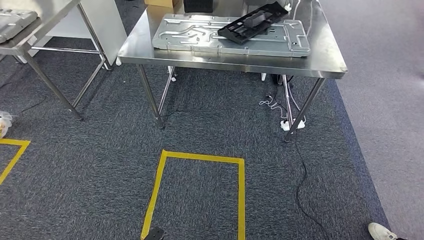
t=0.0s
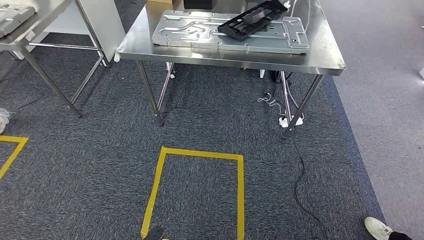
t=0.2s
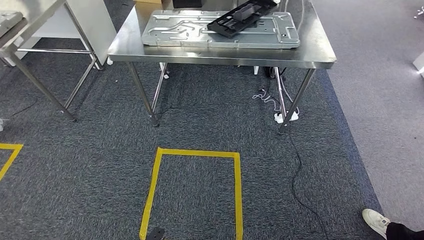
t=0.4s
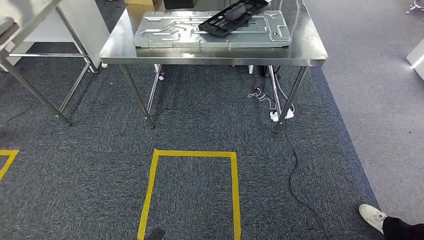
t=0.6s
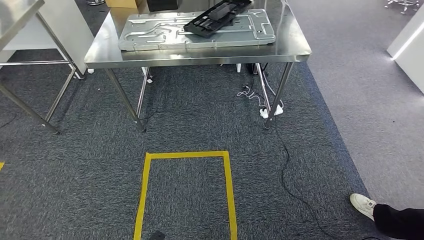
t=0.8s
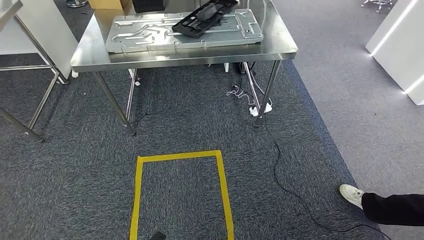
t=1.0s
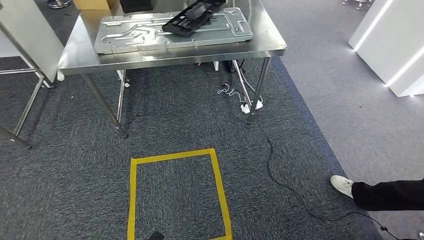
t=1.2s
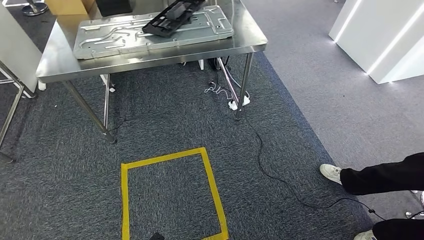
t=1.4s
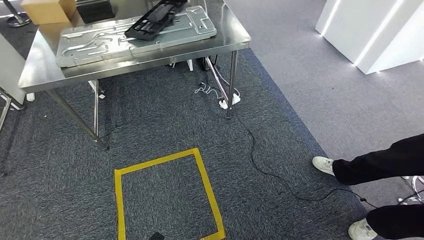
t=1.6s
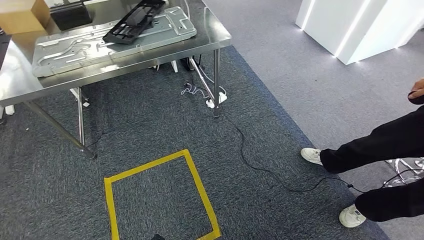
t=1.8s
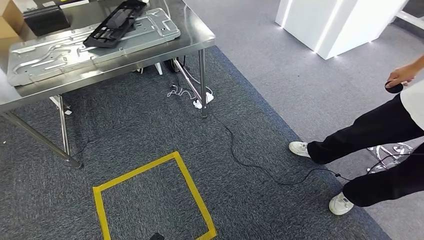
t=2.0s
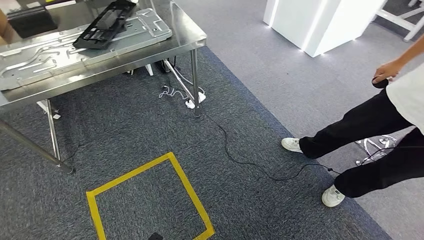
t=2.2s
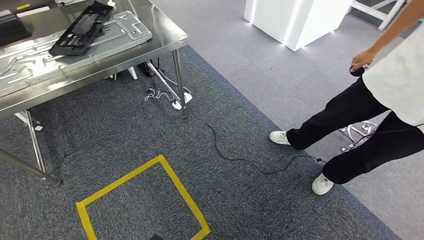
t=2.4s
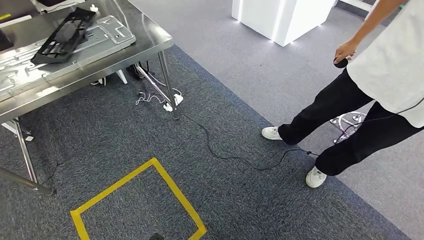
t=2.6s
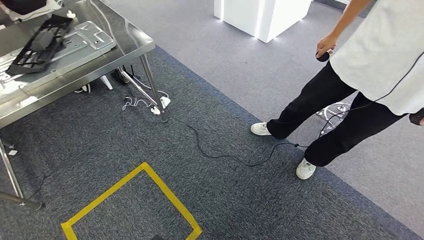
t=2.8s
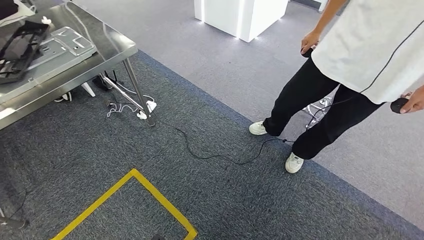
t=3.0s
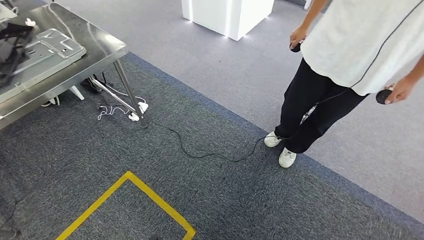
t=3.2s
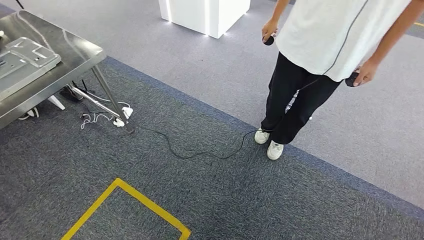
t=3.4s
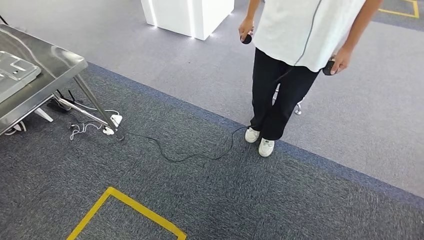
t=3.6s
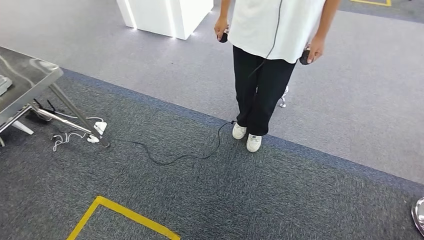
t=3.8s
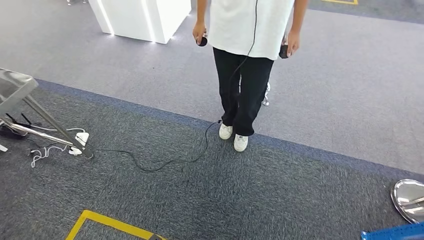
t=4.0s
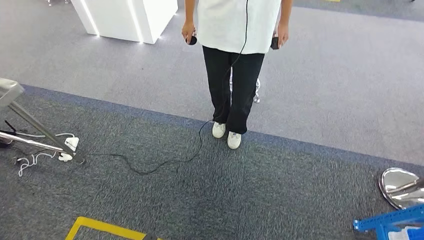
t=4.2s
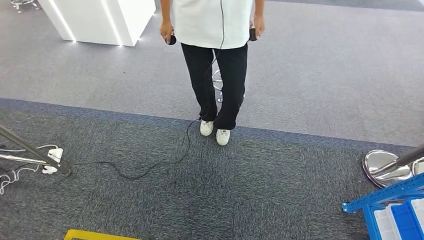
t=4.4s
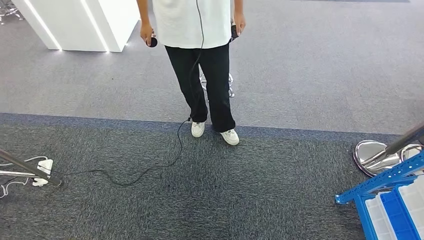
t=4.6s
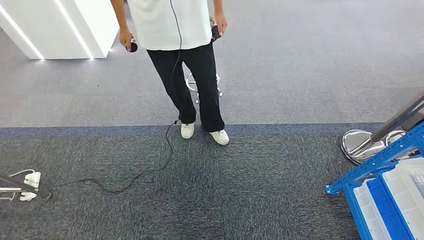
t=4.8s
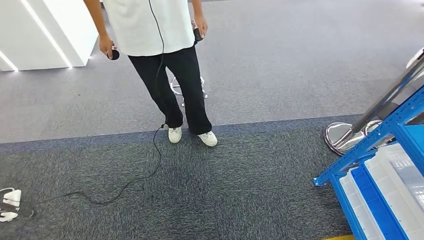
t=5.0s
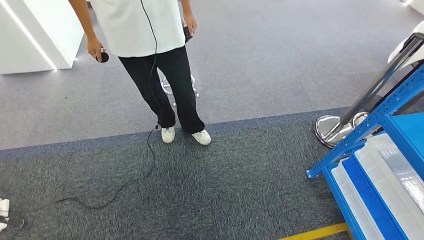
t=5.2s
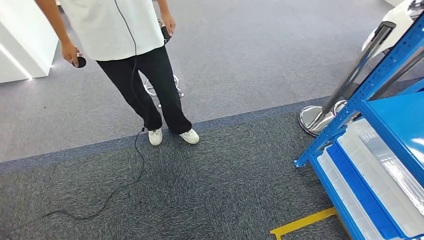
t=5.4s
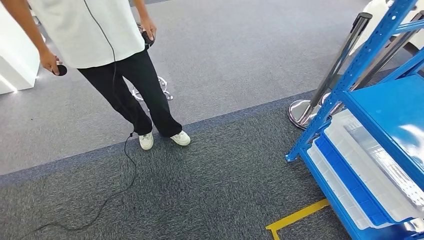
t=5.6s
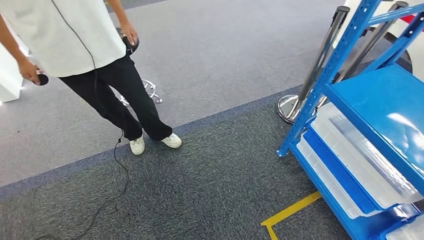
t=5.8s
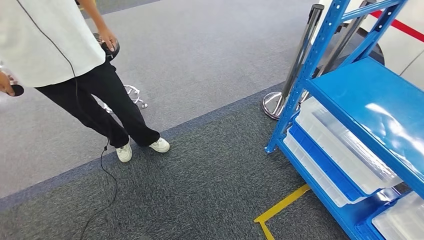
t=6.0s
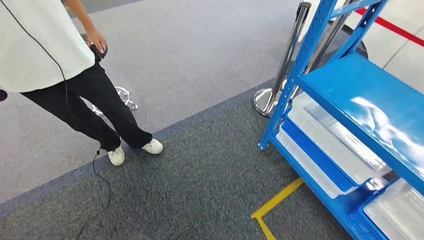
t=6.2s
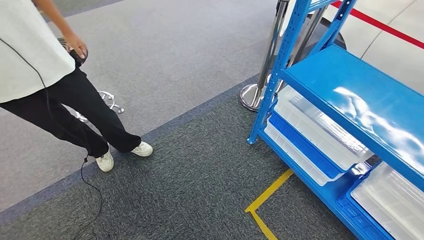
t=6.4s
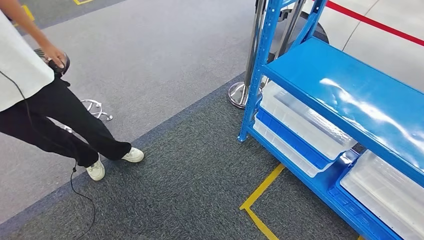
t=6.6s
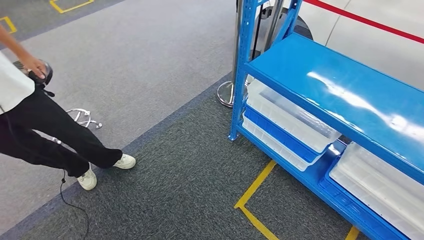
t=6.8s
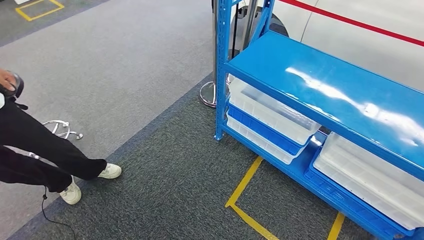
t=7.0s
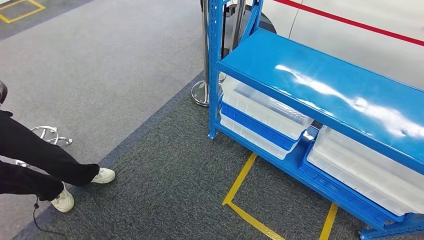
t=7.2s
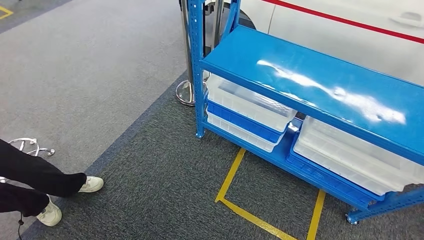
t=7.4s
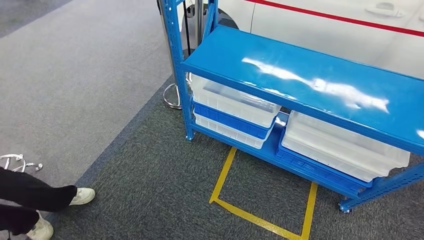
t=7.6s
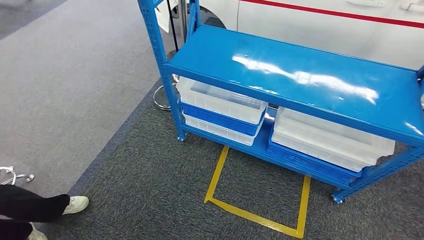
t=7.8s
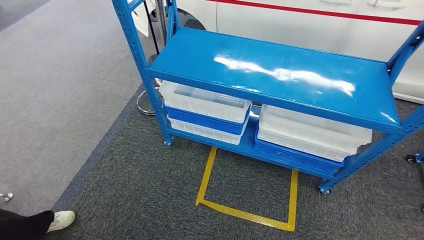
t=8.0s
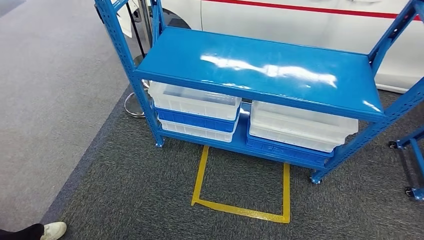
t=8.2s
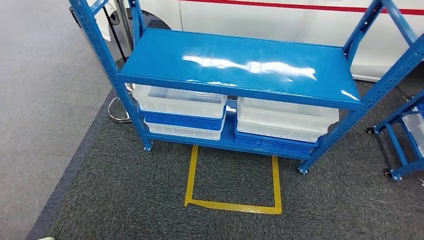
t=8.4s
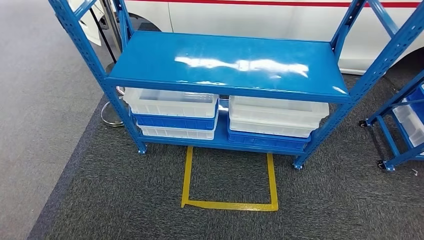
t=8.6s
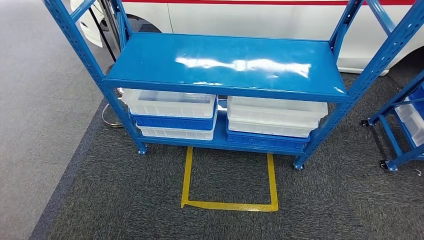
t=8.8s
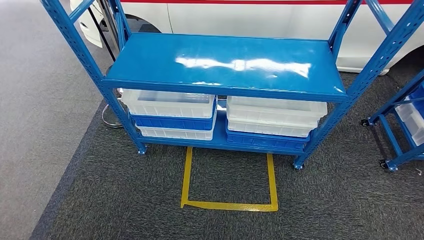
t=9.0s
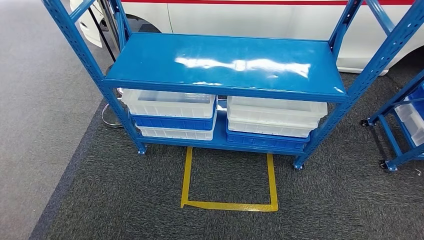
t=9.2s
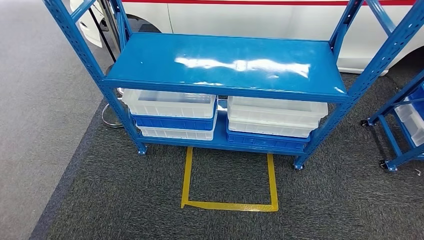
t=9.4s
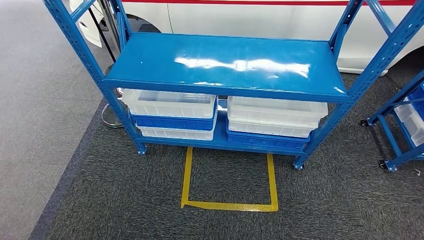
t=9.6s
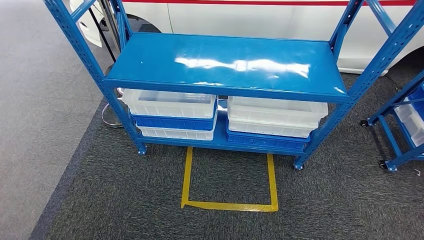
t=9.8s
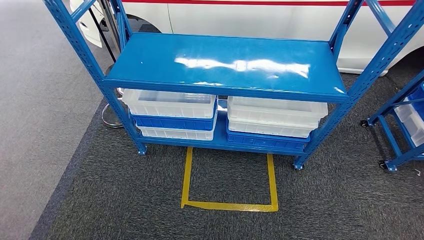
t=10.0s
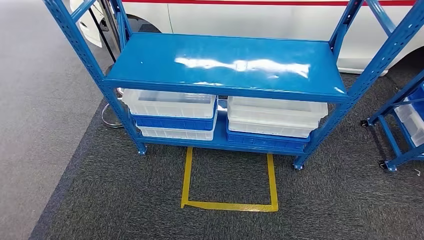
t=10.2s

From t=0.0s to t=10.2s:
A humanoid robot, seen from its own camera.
Step, from t=0.0s to t=10.0s: Return to the initial position at the shelf.
